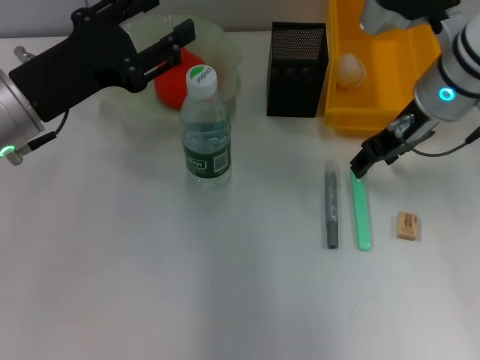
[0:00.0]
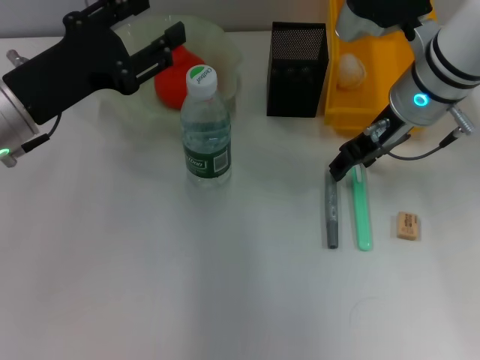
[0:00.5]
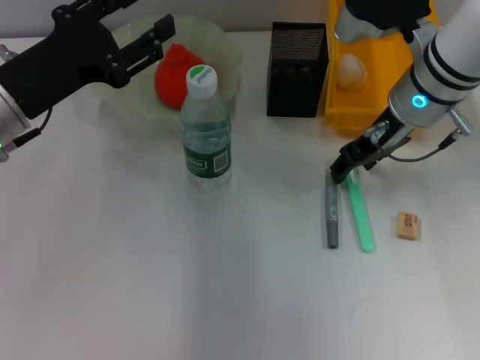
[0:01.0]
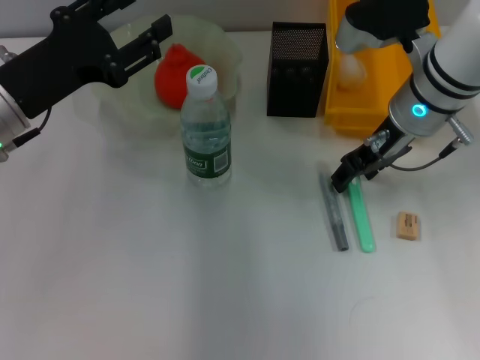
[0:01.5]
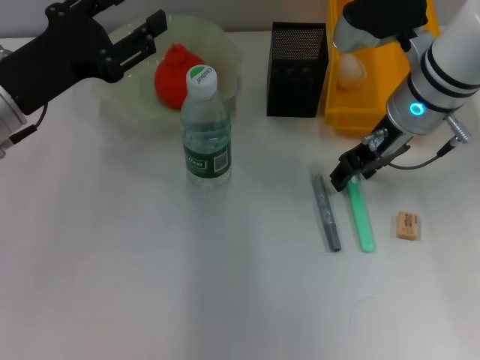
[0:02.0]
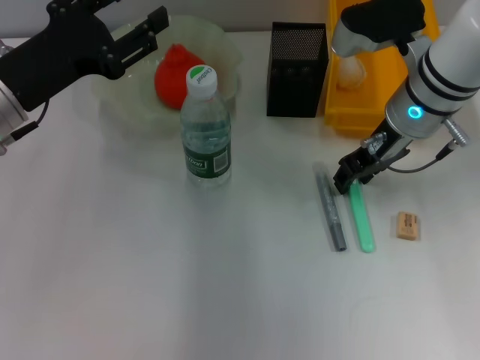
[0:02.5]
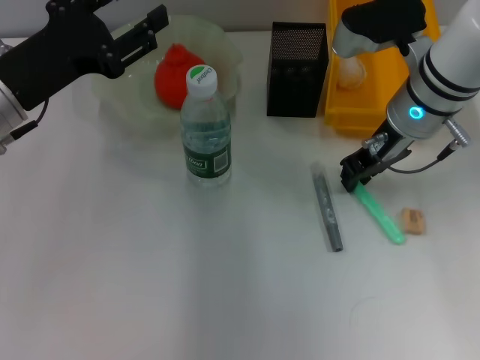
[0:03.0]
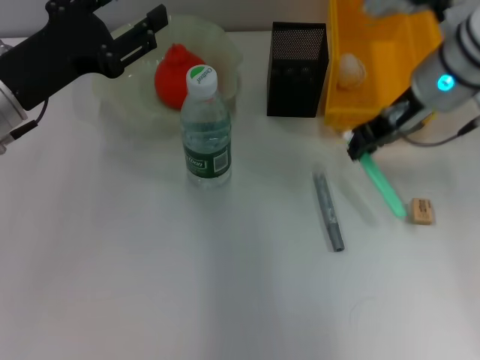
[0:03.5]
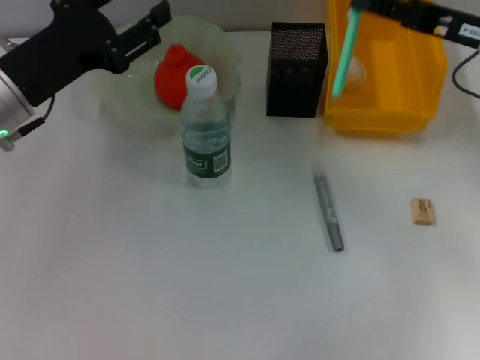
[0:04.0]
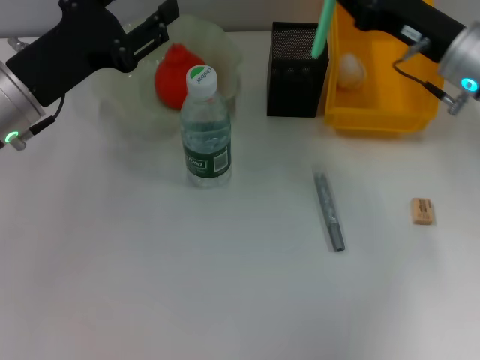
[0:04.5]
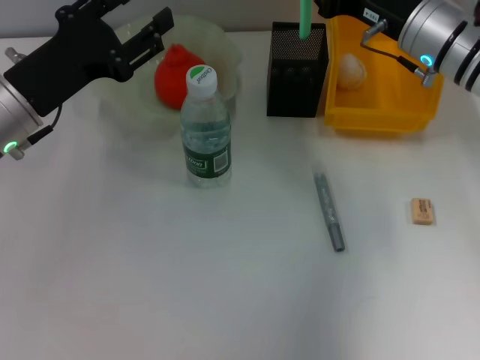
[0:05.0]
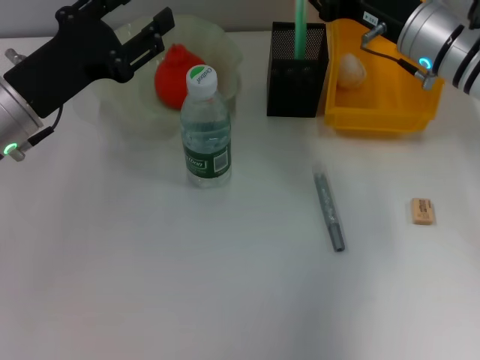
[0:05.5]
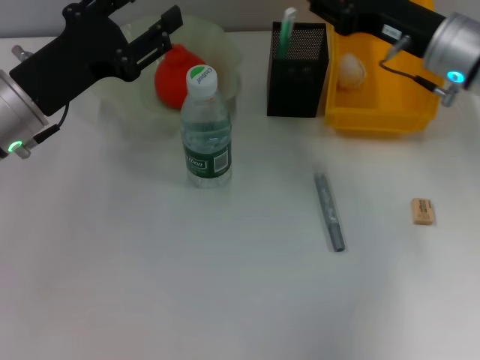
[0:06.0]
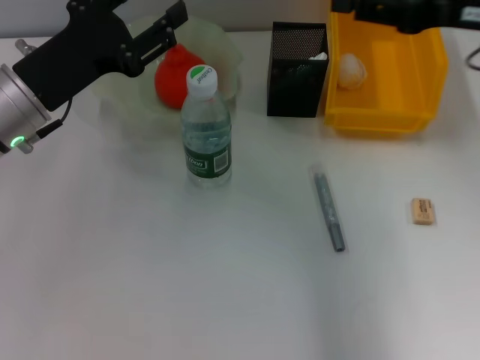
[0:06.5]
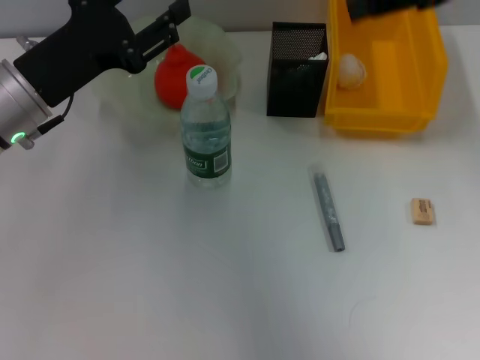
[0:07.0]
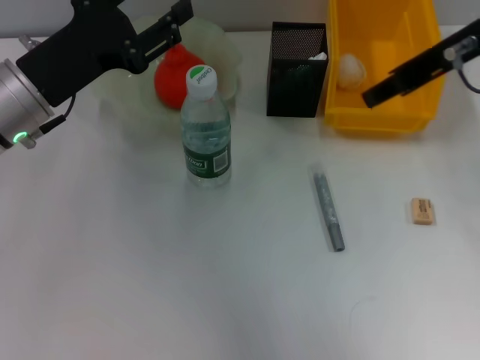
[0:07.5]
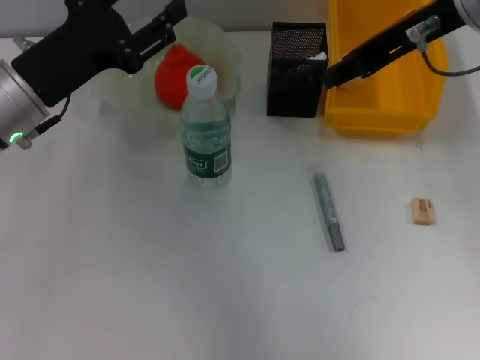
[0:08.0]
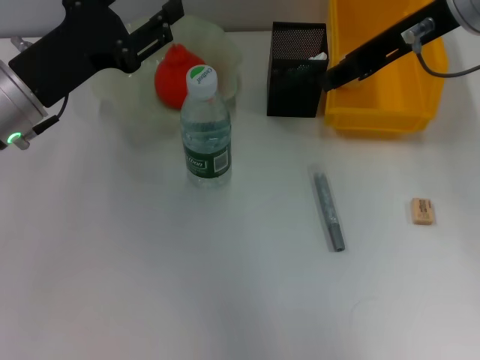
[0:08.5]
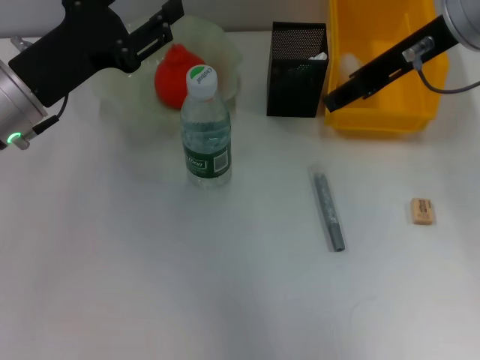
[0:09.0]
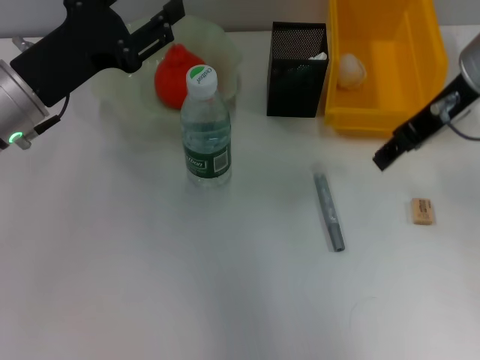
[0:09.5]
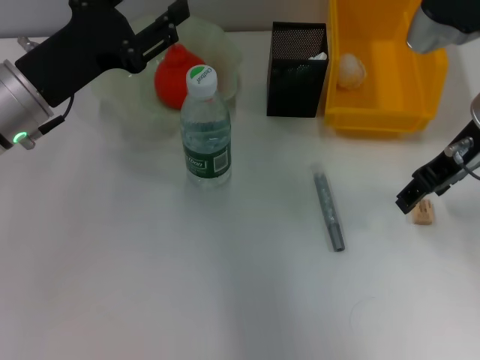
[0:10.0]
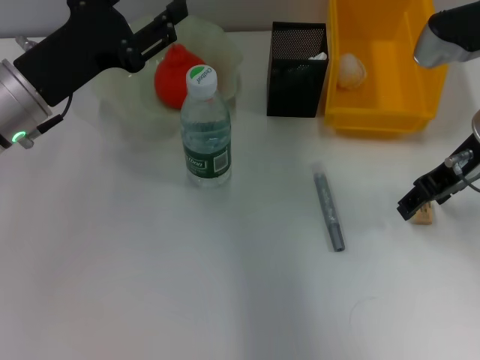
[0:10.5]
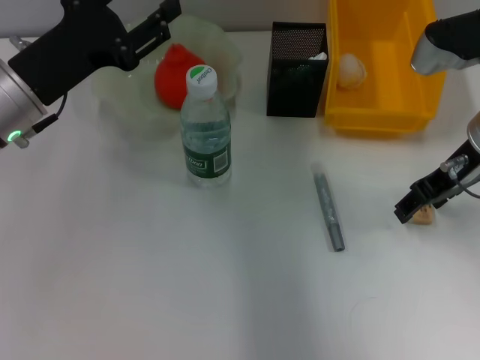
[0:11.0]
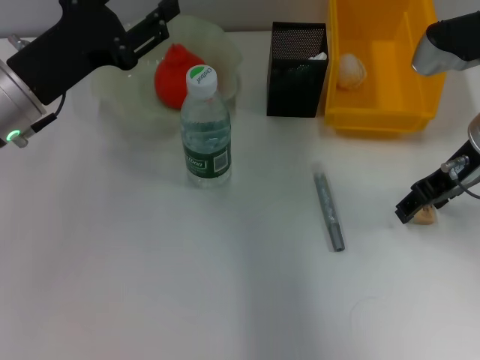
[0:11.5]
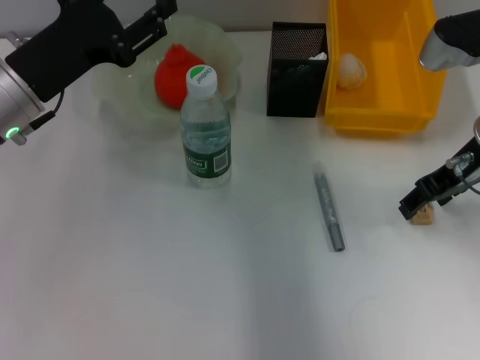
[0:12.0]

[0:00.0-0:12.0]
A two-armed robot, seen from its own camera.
Step, 0:00.0 to 0:02.5: Grab the blue utility knife with the right hand.
Step, 0:03.5 to 0:05.5: Place the blue utility knife into the pen holder with the right hand.
0:00.0 to 0:02.0: There are only small adjustments of the grippers.
0:02.0 to 0:04.0: The right gripper is displaced to the right by roughly 10 cm, and closes up.
0:04.0 to 0:06.0: The right gripper is displaced to the left by approximately 5 cm, and opens.
0:06.0 to 0:08.0: The right gripper moves upward, about 15 cm.
0:08.0 to 0:10.0: The right gripper is displaced downward by about 10 cm, and opens.
0:10.0 to 0:12.0: There are only small adjustments of the grippers.

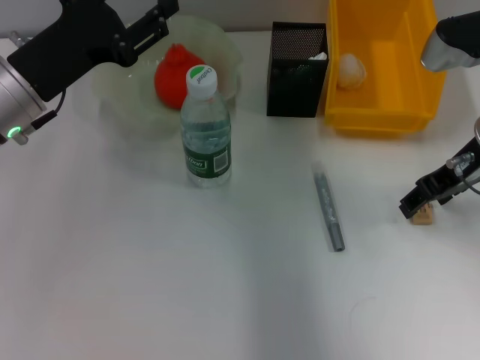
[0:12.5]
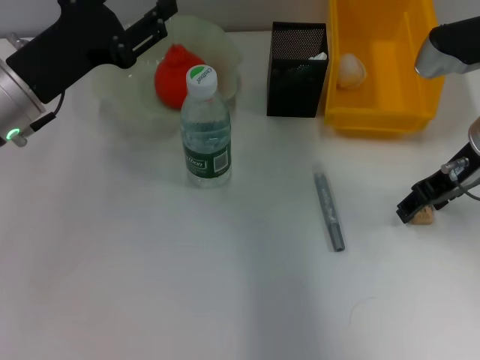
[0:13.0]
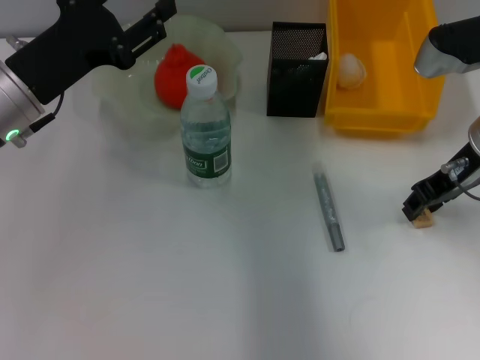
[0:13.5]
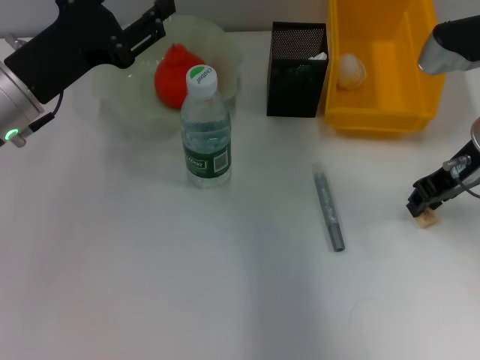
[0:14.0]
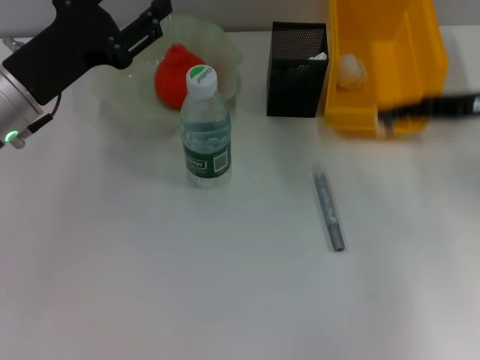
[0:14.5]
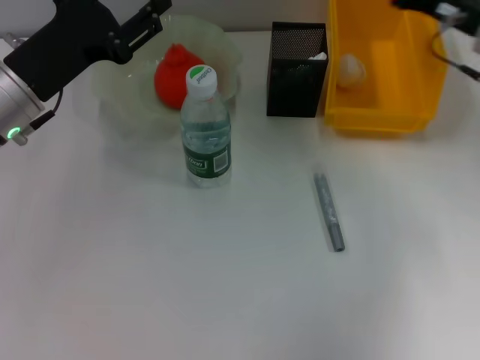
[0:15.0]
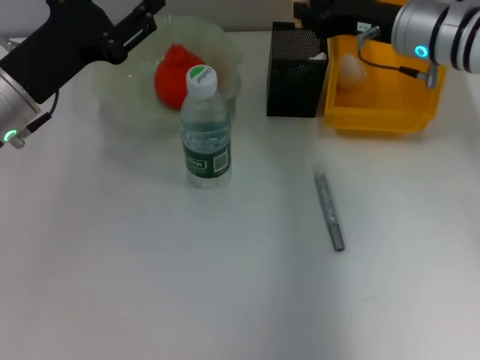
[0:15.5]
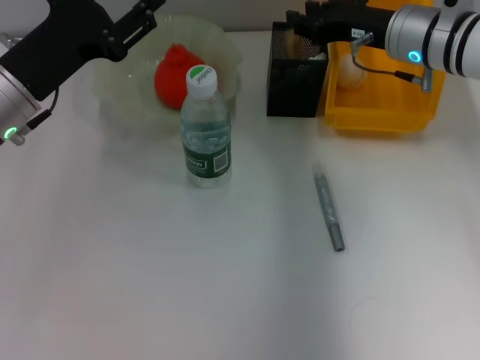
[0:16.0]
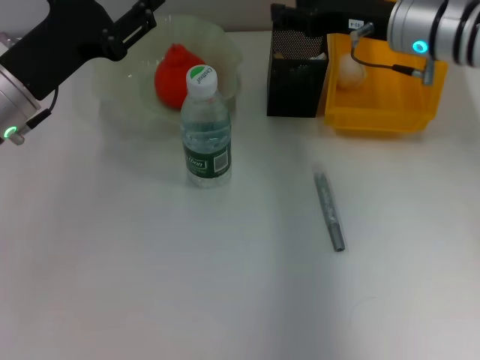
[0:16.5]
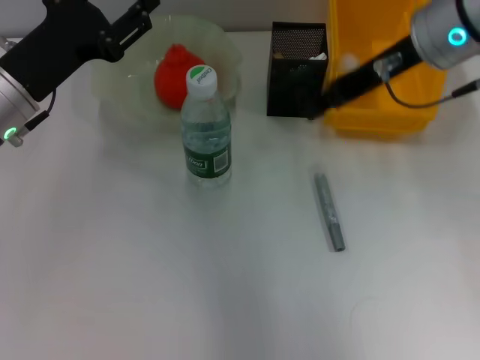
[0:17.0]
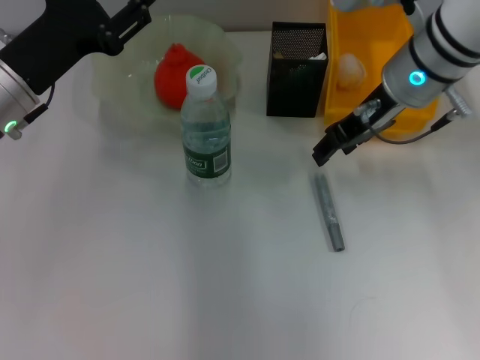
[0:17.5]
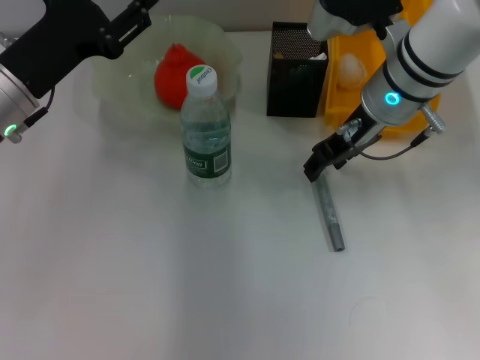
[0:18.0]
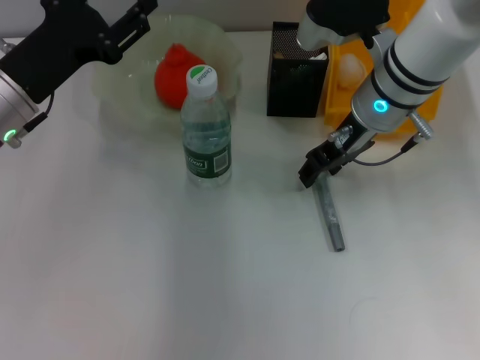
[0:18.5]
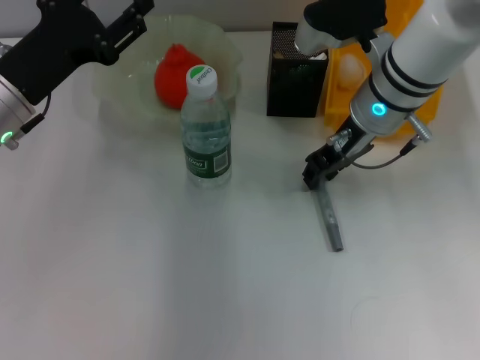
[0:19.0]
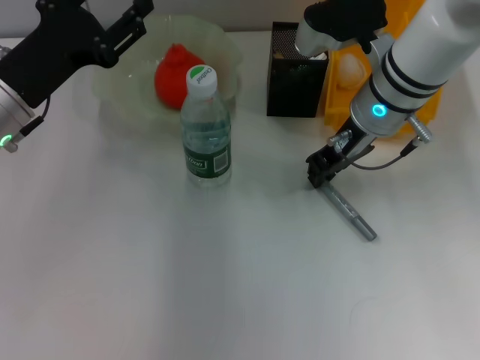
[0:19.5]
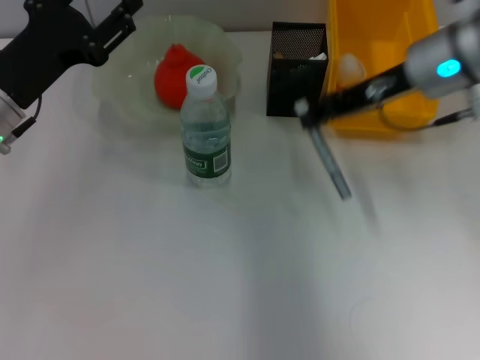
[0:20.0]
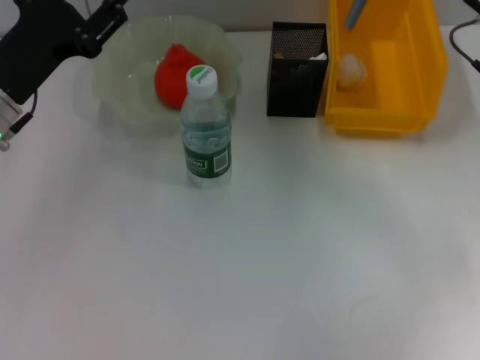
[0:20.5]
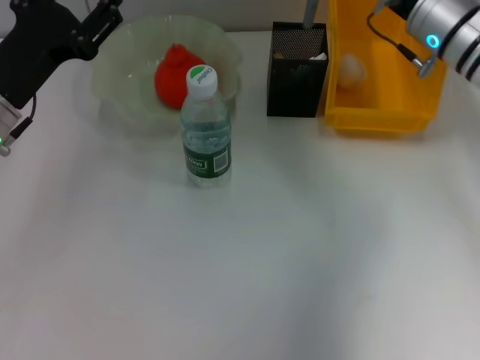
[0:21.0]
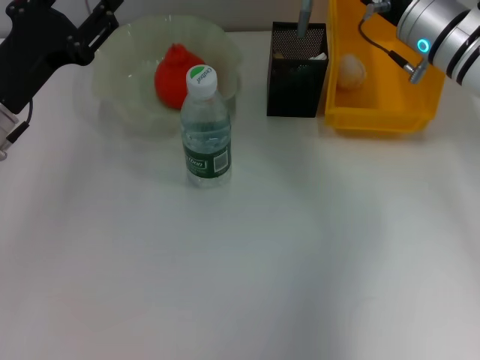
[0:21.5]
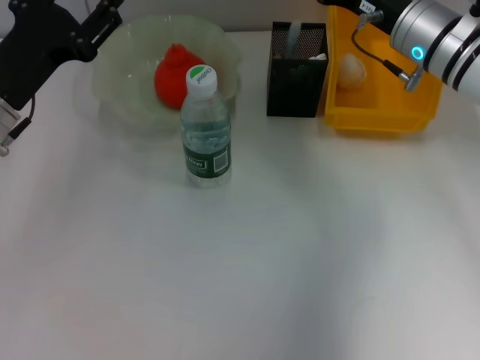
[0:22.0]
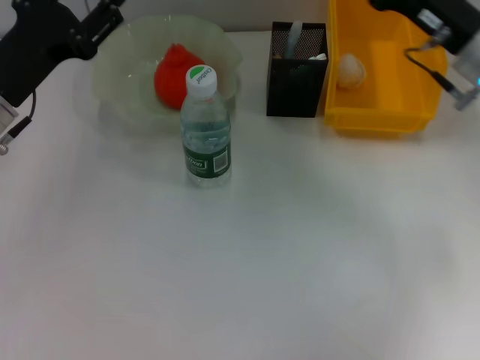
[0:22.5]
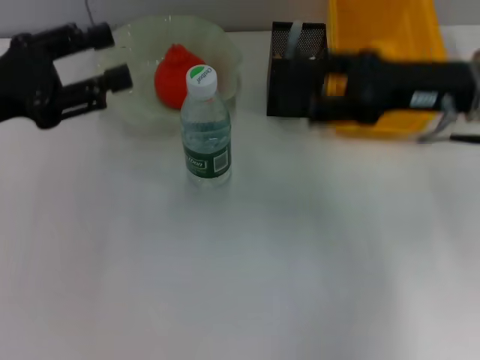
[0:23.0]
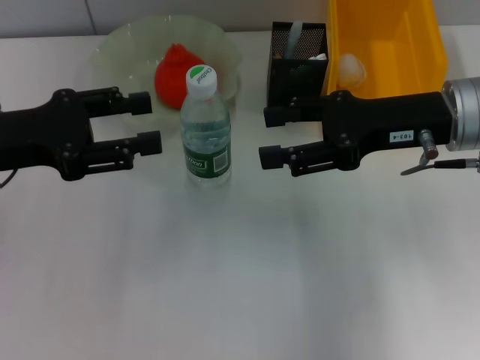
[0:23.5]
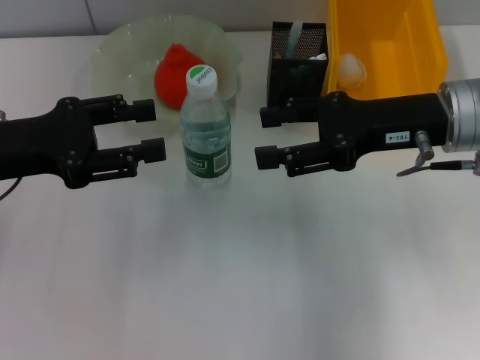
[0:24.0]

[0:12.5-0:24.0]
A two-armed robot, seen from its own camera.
Step, 0:14.0 to 0:16.0: Put the eraser into the pen holder with the right hand.
Step, 0:16.5 to 0:19.0: Grab the gray glue with the right hand.
Step, 0:19.5 to 0:22.0: Place the gray glue into the pen holder with the right hand.
0:12.5 to 0:14.5: The right gripper goes about 5 cm to the right, and closes its fingers.
0:14.5 to 0:16.5: The right gripper shifts roughly 15 cm to the left and forward, and opens up.
0:16.5 to 0:18.5: The right gripper shifts roughly 5 cm to the left, and reaches some 5 cm upward, then returns.
0:18.5 to 0:20.0: The right gripper travels to the right by about 5 cm, and closes its fingers.
0:20.0 to 0:22.0: The right gripper travels downward by roughly 5 cm, and goes to the right and returns, about 10 cm each way.
0:22.0 to 0:24.0: The left gripper shifts by some 5 cm. The right gripper is displaced backward by some 10 cm, and opens its fingers.

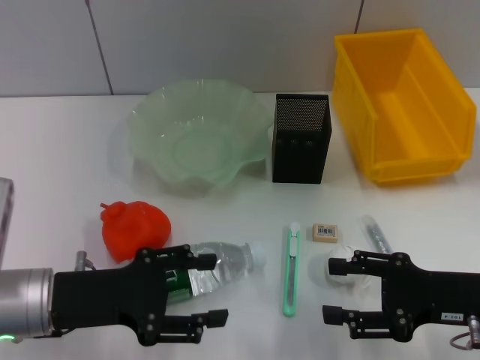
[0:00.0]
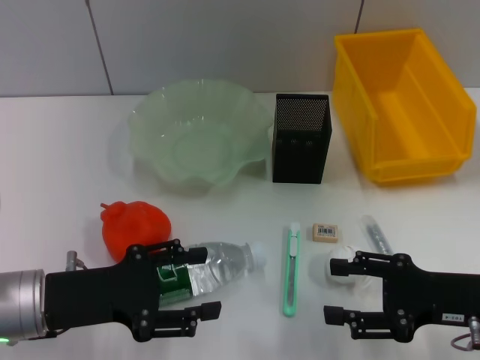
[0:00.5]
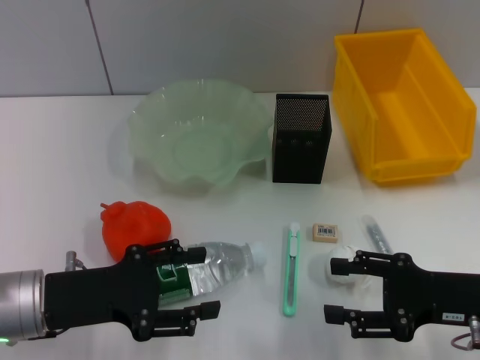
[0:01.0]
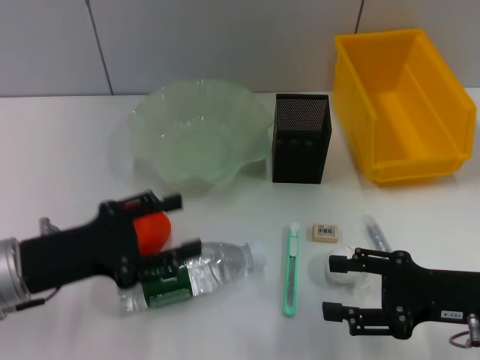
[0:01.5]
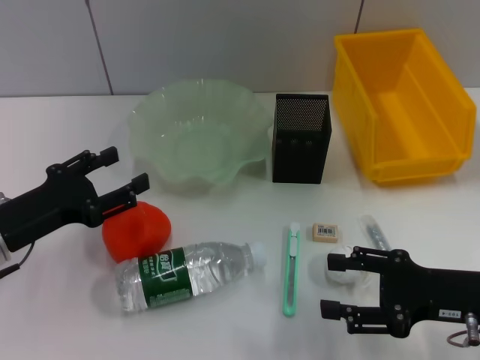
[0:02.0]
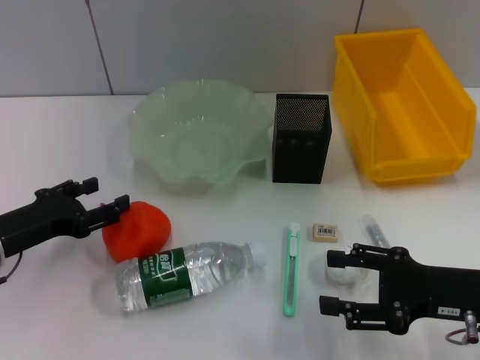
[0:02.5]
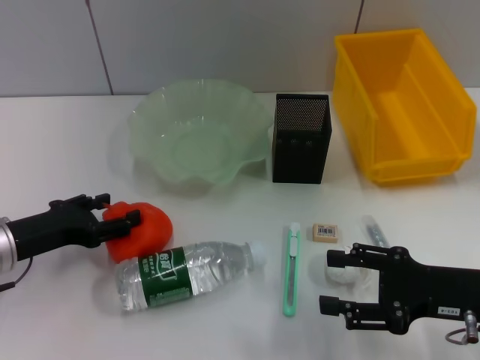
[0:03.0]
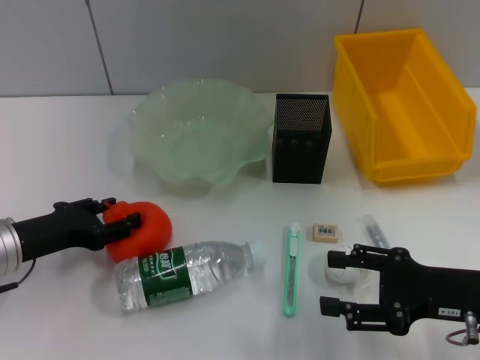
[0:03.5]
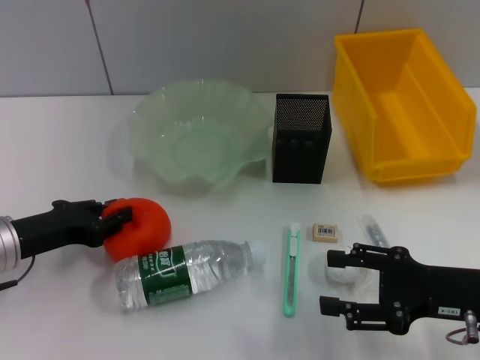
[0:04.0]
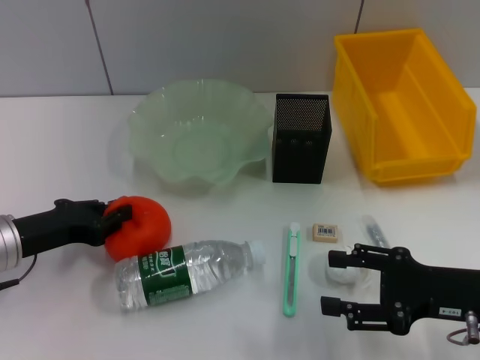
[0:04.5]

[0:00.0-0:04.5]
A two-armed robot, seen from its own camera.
0:00.0 to 0:02.0: The left gripper changes place by some 5 cm.
0:02.0 to 0:04.5: The left gripper closes.
